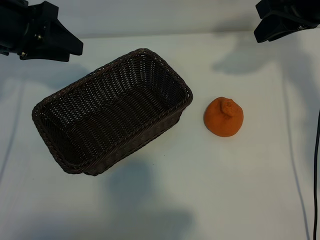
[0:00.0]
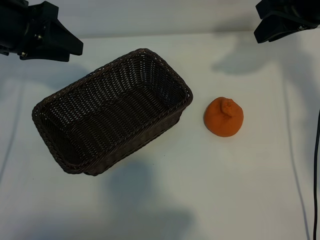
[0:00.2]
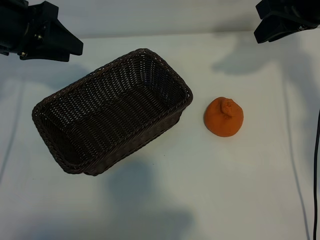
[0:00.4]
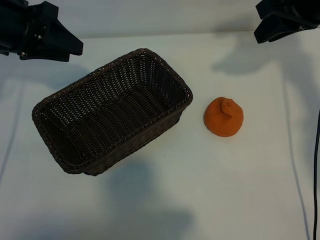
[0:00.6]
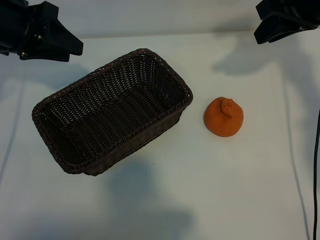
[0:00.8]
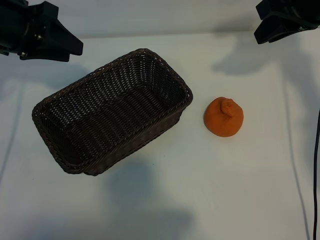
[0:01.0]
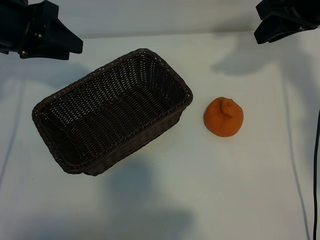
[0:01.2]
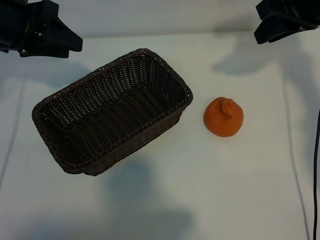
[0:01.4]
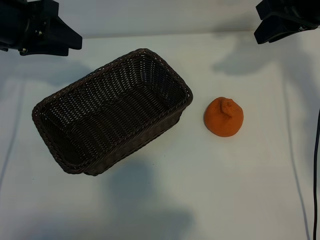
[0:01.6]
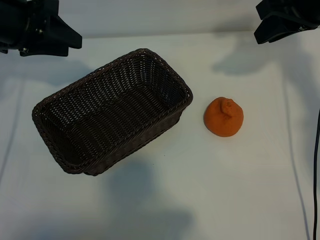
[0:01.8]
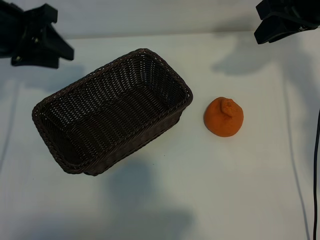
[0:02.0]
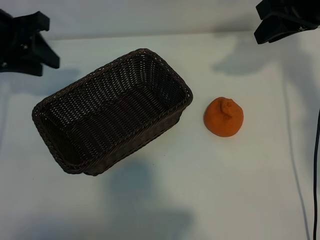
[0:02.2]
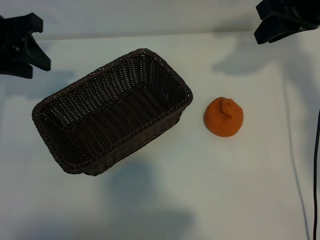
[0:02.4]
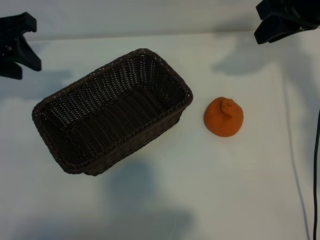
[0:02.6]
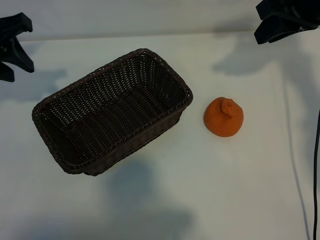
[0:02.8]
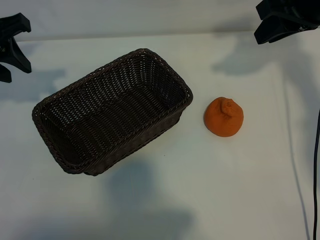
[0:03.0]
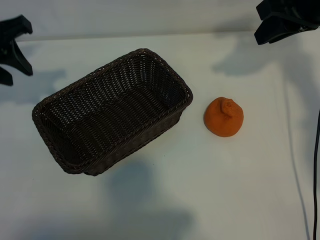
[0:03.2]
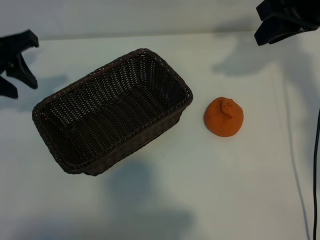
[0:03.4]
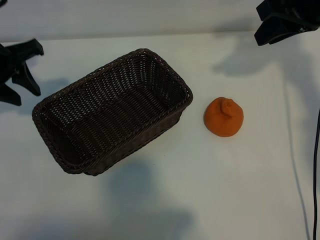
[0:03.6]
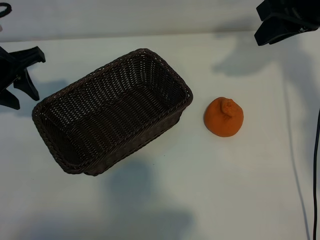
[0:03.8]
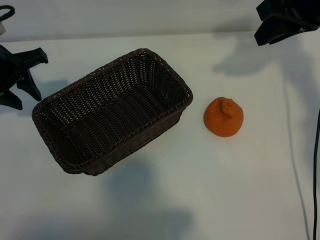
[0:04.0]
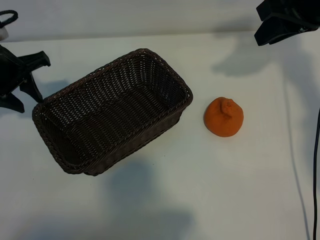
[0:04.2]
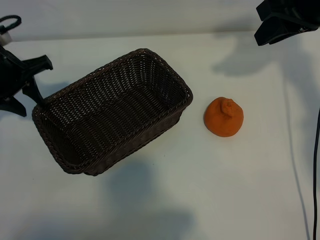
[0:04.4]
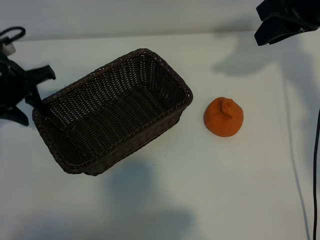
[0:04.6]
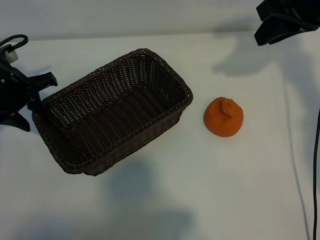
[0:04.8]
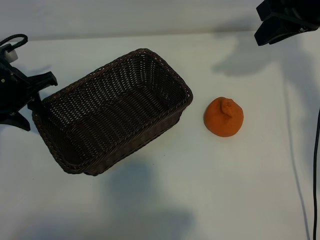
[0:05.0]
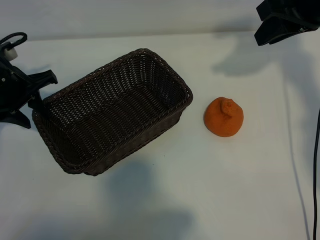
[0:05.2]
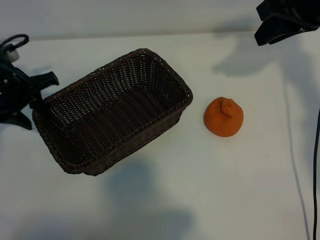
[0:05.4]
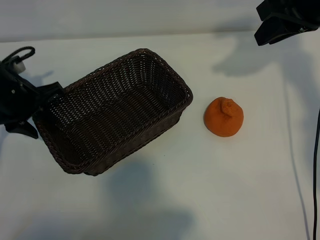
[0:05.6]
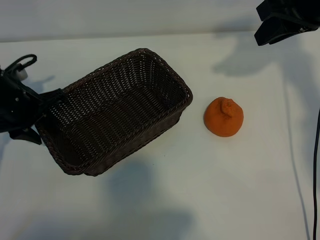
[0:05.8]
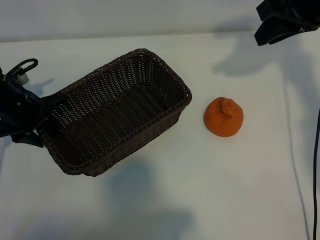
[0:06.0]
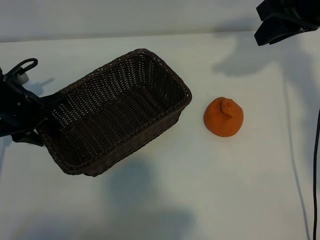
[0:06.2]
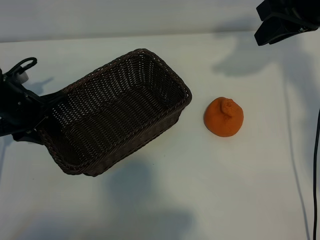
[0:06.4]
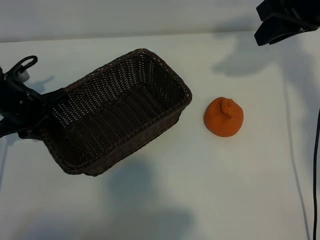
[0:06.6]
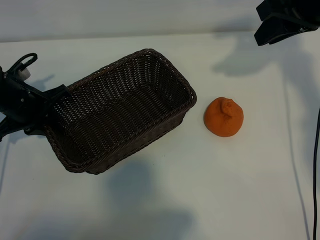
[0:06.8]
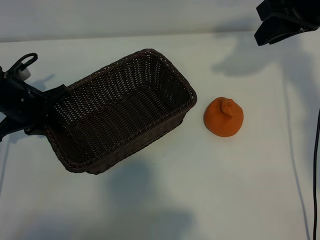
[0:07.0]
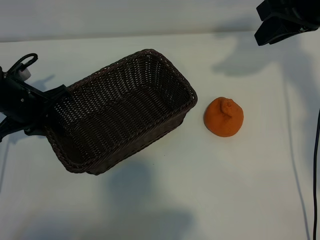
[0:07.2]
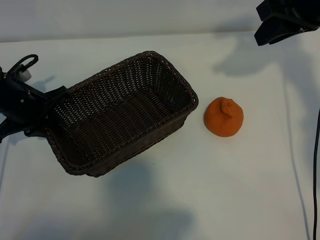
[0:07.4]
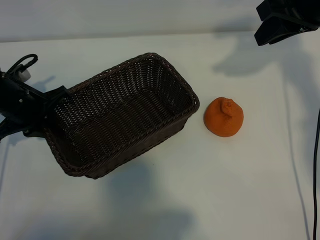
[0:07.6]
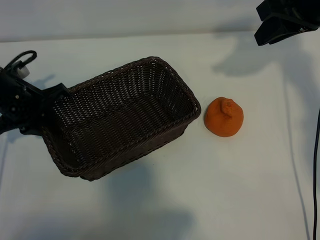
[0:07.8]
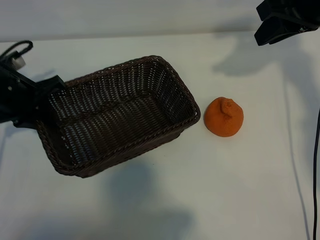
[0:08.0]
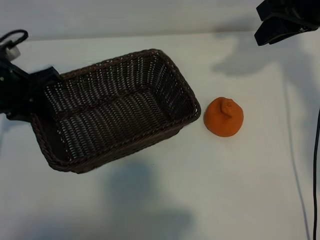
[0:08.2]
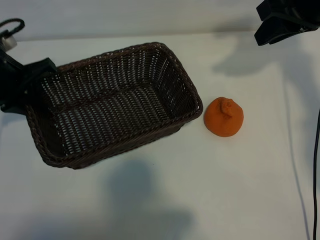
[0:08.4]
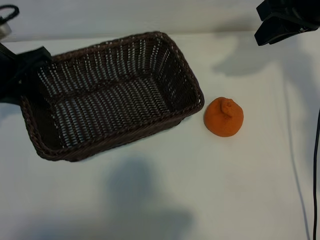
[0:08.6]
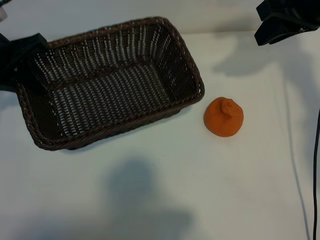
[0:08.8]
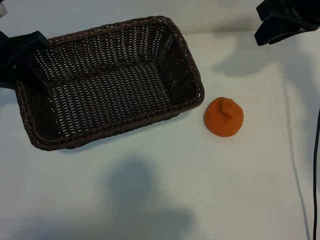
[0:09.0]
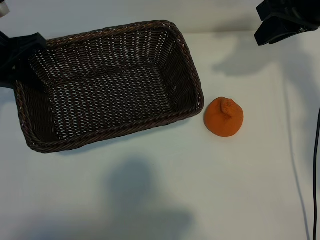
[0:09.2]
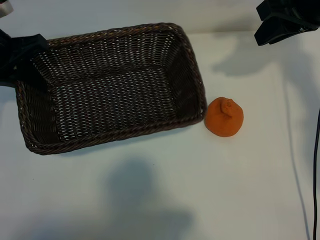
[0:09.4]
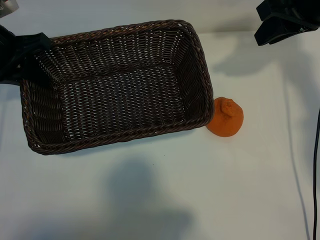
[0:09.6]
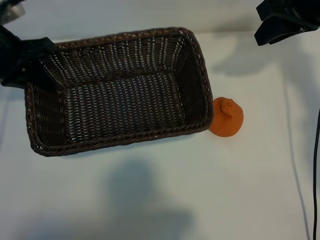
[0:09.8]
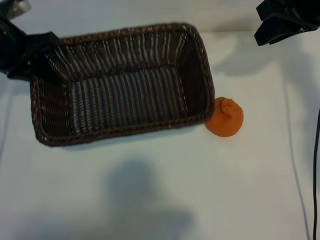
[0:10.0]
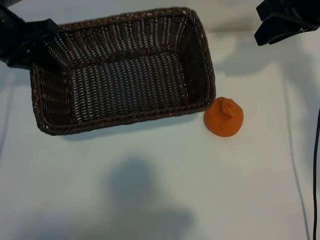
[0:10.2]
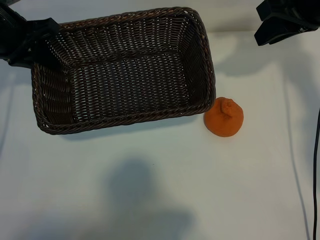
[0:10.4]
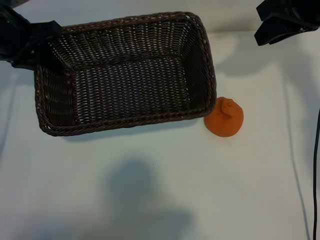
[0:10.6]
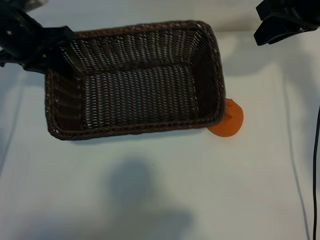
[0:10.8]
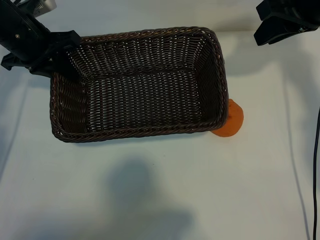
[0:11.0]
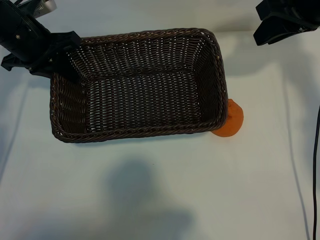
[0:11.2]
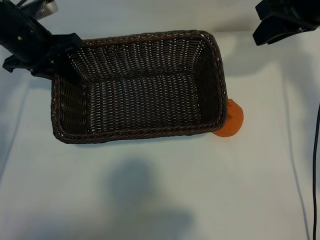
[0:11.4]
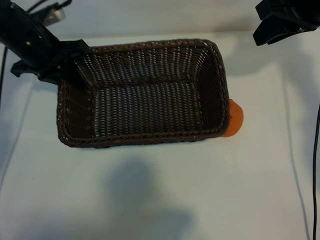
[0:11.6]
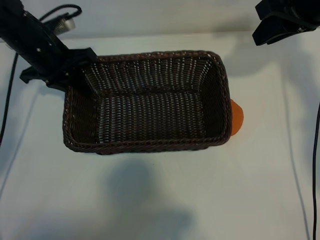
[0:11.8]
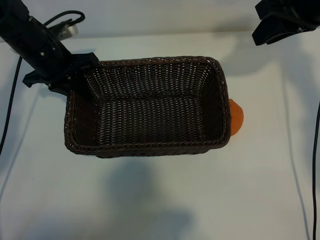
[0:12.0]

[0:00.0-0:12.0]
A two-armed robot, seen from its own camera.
Task of the whole recording: pick up the orange and put it into the basket.
Step, 0:00.8 to 0:06.8: Grasp the basket with left gripper.

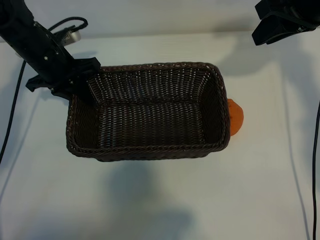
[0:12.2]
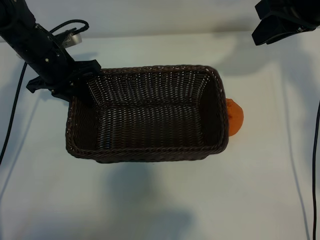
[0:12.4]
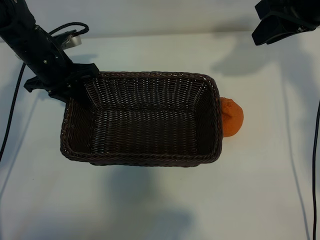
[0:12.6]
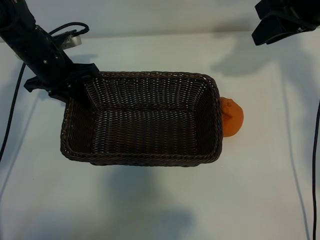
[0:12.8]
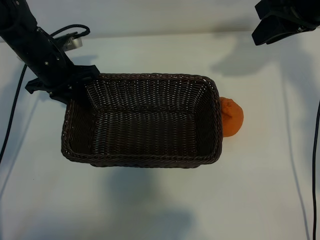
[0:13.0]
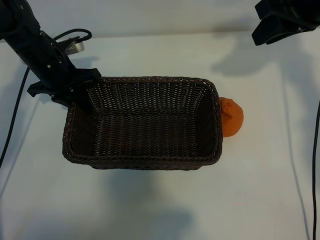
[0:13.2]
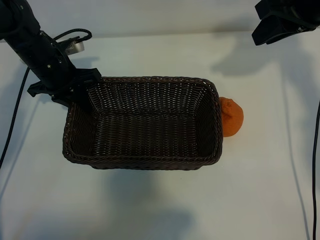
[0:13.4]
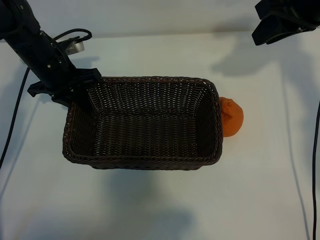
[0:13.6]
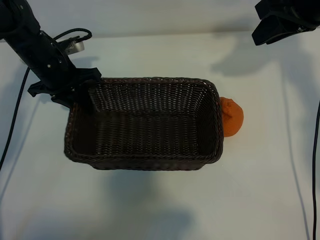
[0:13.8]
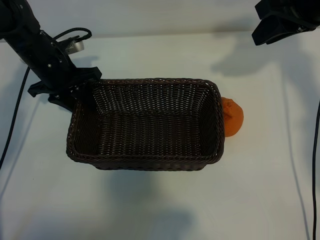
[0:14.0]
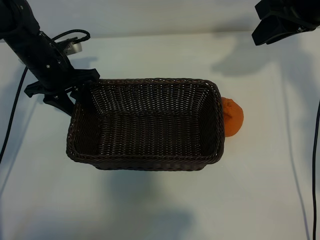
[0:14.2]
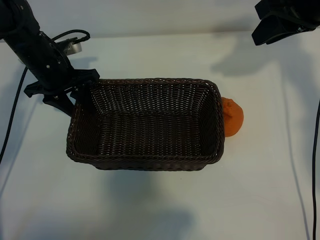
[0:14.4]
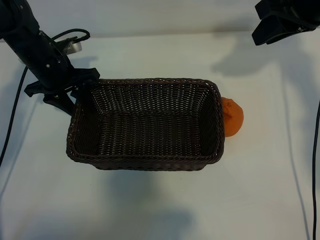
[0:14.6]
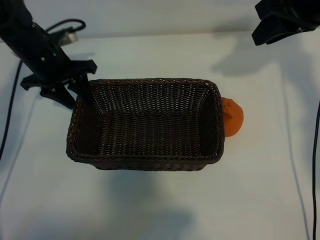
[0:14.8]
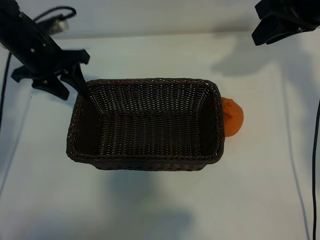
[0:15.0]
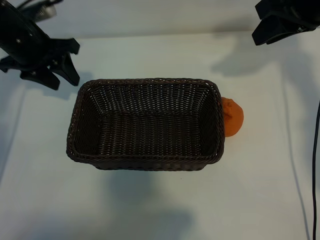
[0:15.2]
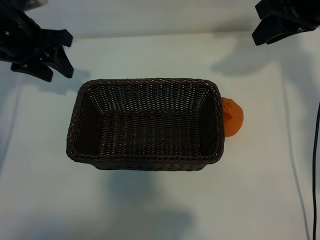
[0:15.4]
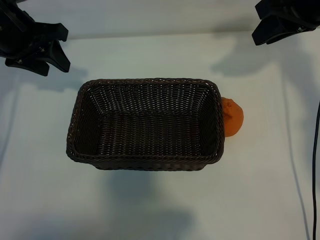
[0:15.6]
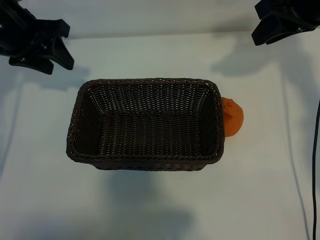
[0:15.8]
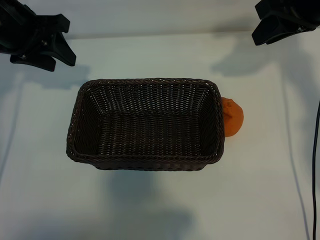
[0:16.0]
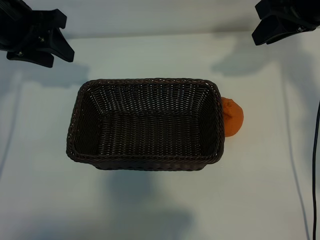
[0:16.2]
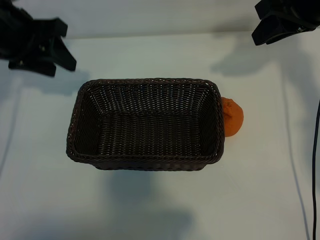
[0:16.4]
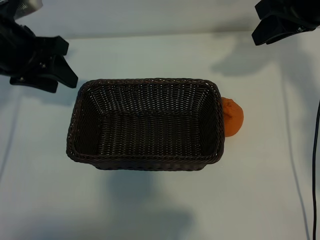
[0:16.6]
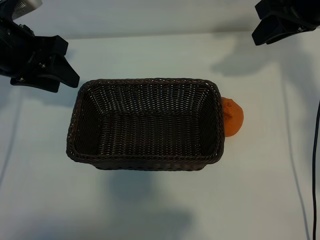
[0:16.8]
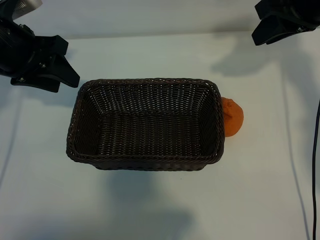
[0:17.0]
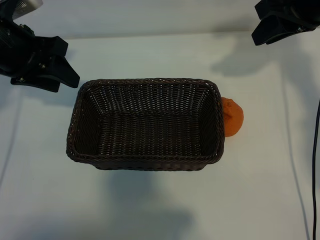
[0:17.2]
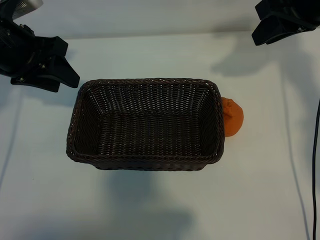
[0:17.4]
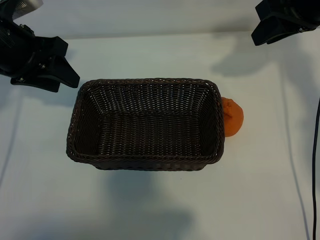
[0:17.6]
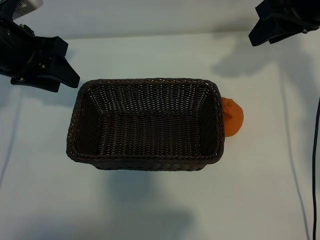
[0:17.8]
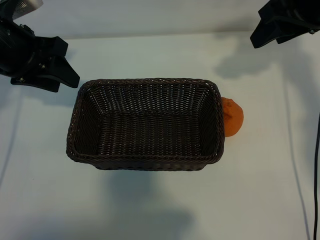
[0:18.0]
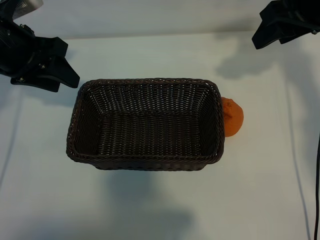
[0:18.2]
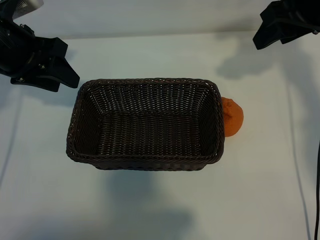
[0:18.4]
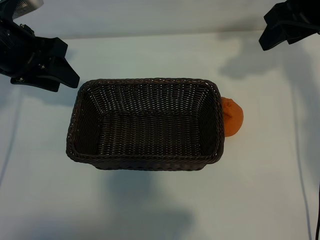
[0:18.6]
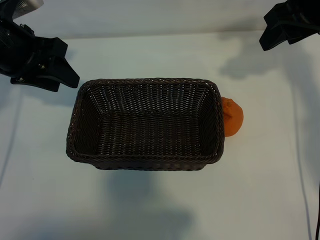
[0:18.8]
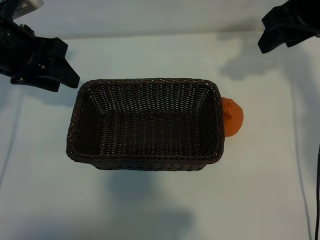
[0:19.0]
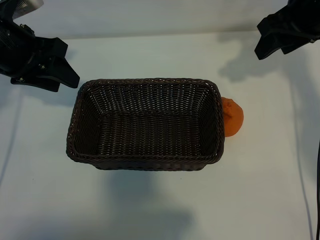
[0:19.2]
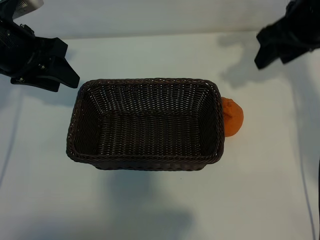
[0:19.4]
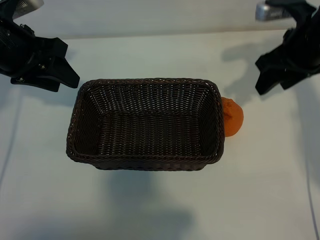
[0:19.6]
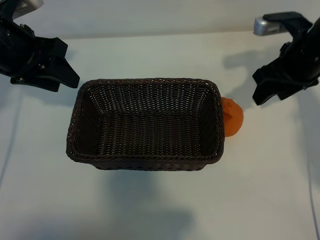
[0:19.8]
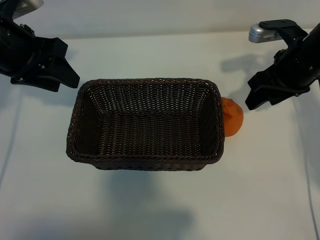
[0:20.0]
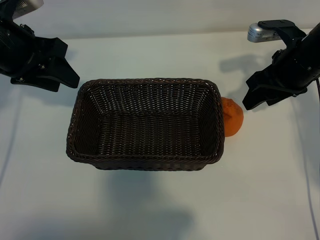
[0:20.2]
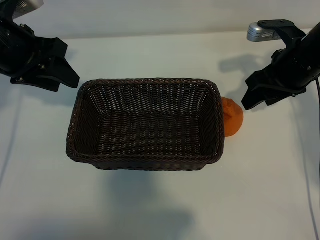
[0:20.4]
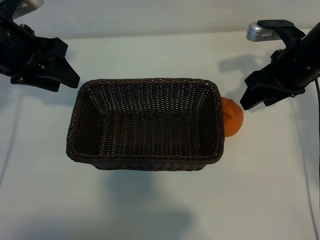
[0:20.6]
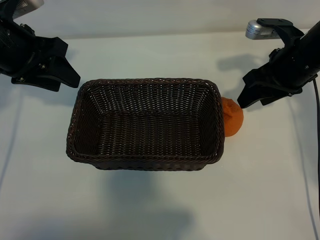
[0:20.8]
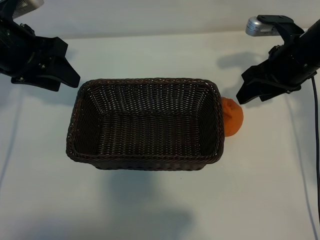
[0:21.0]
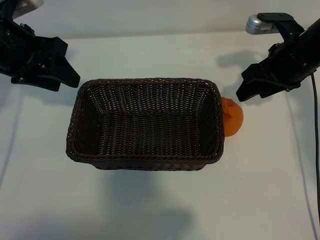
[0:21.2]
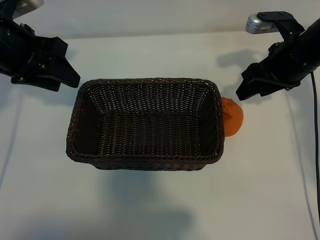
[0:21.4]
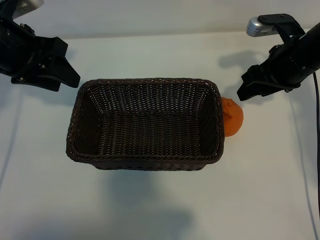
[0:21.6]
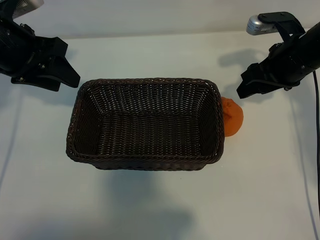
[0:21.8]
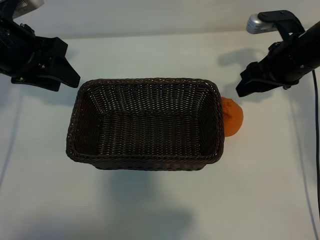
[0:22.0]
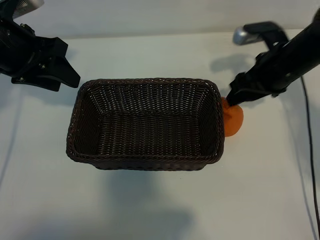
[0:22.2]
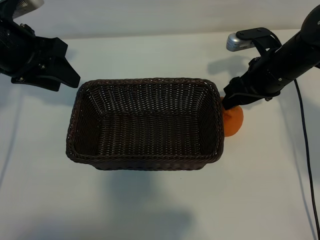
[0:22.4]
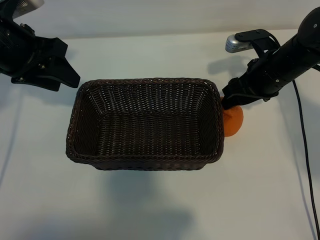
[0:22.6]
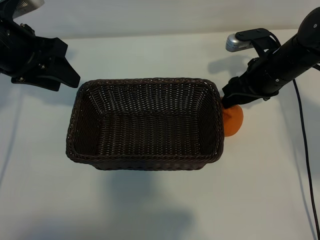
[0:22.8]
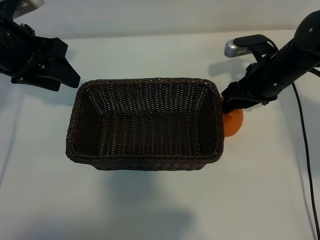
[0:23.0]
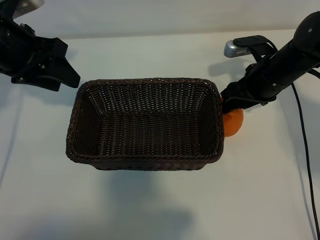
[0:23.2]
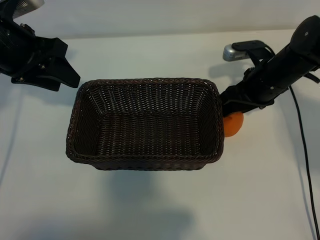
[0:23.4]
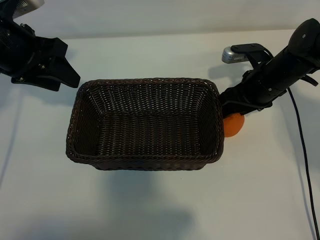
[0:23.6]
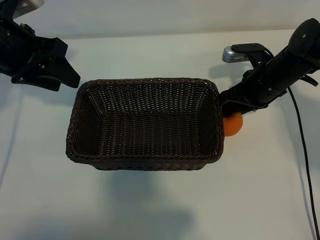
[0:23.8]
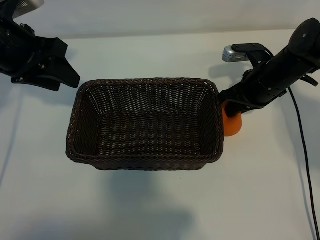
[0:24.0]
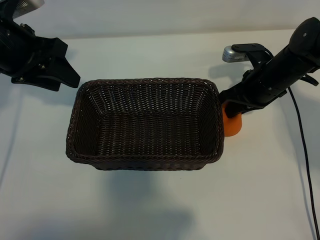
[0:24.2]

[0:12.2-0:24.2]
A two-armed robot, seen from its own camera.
Task of the whole recording: pick up the orange and put it into the basket.
Step, 0:14.2 to 0:24.0: Grasp the orange with right gripper.
